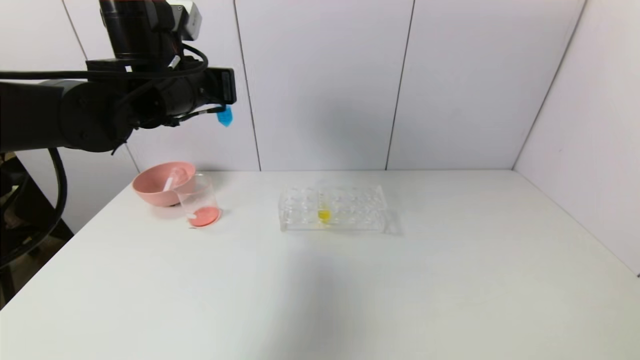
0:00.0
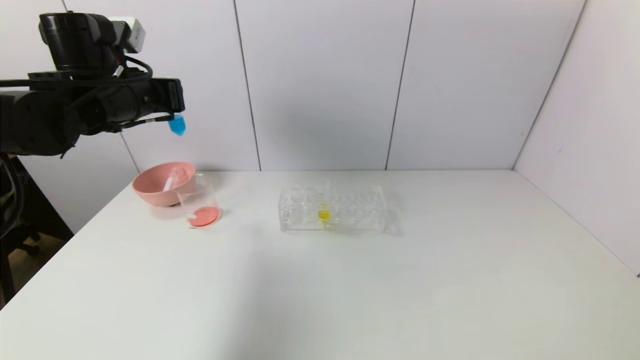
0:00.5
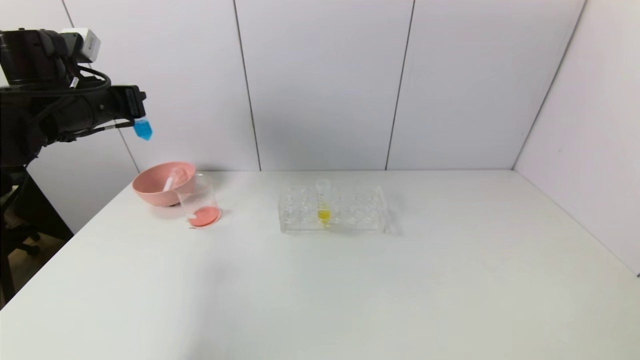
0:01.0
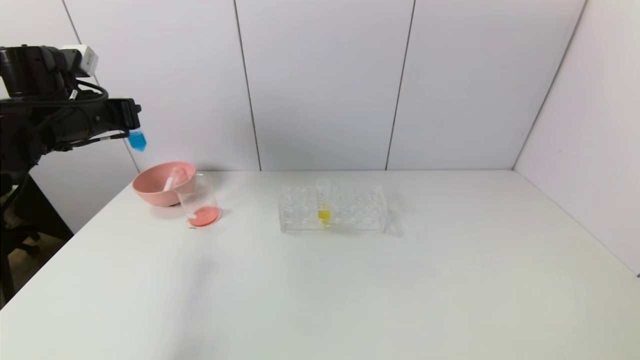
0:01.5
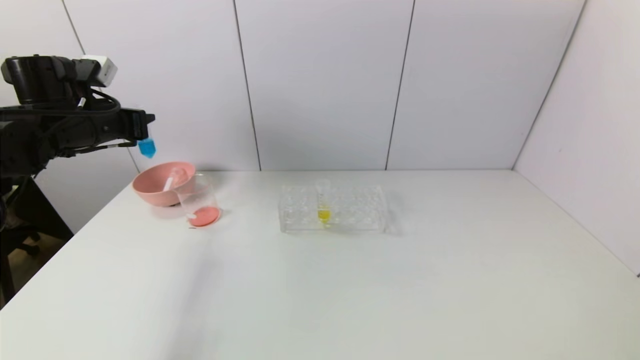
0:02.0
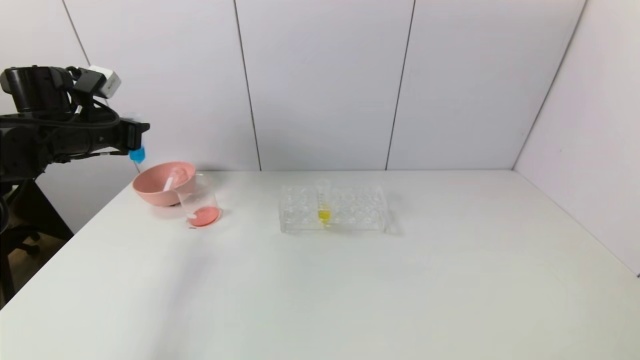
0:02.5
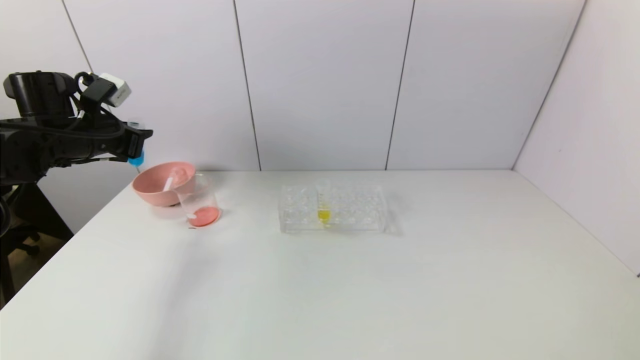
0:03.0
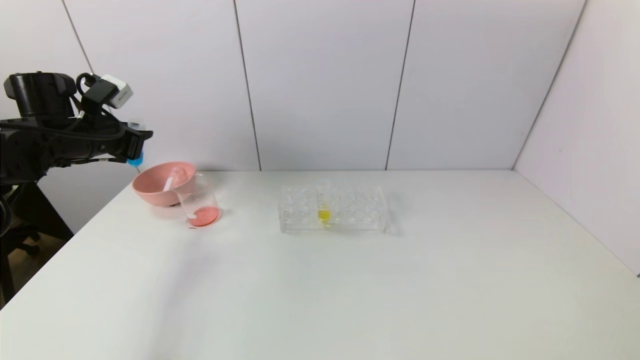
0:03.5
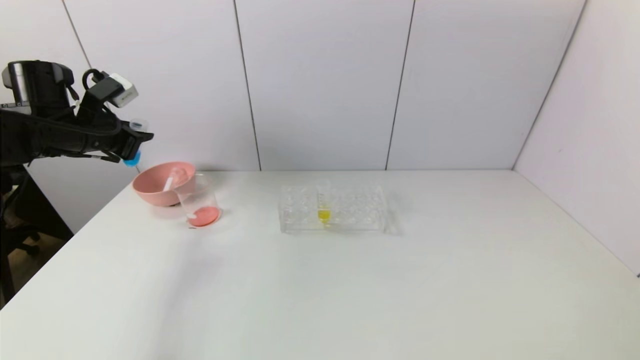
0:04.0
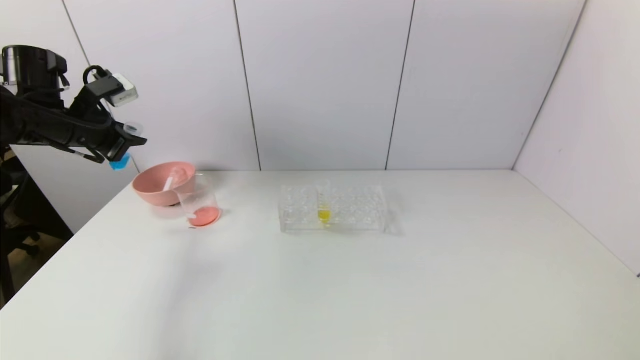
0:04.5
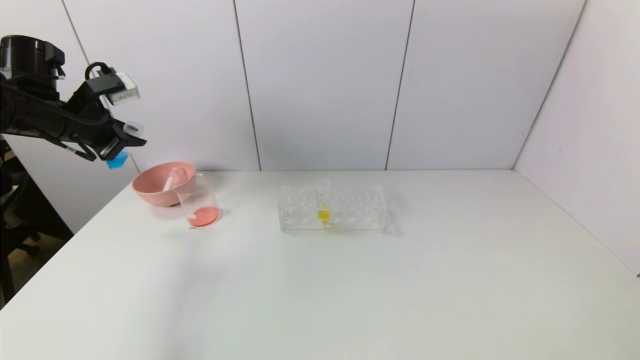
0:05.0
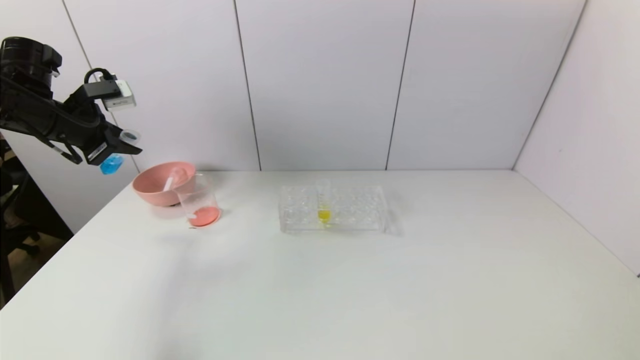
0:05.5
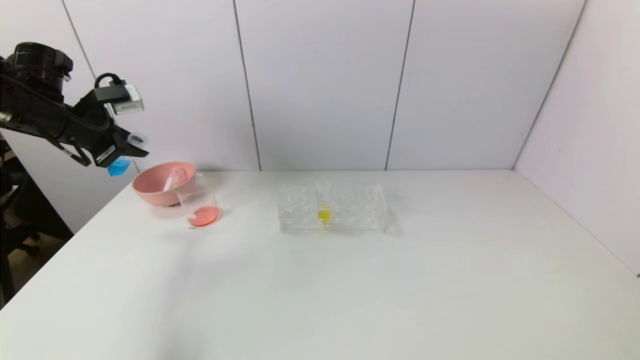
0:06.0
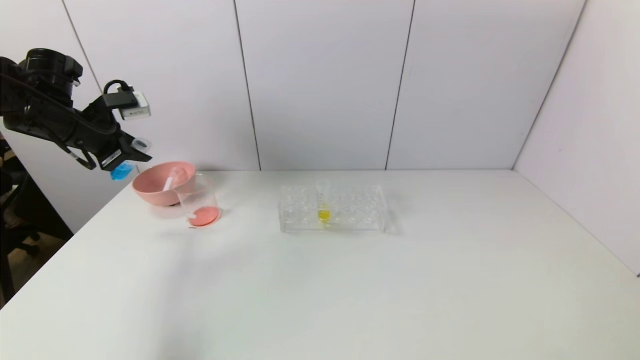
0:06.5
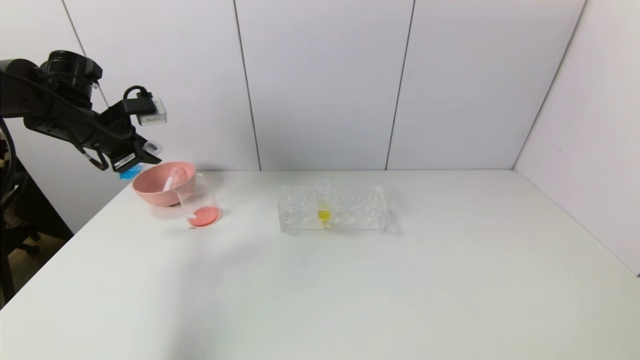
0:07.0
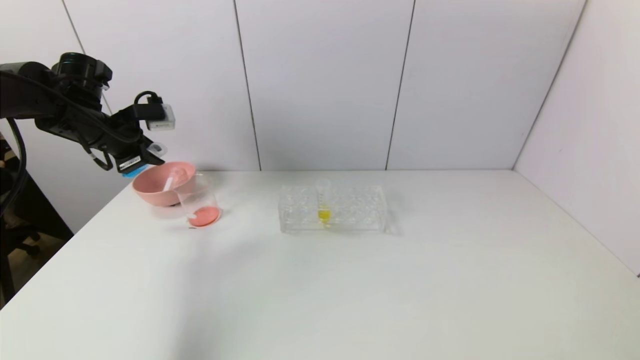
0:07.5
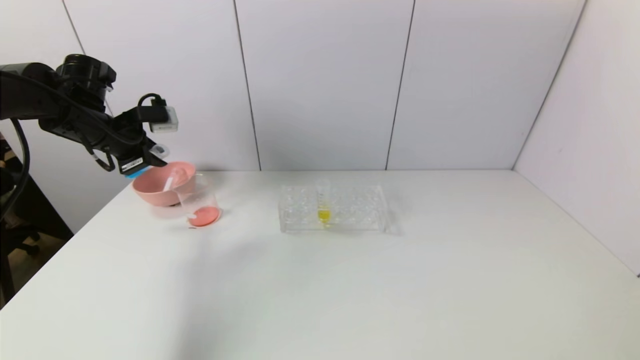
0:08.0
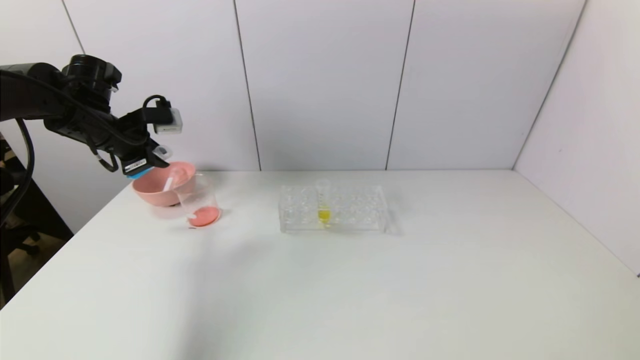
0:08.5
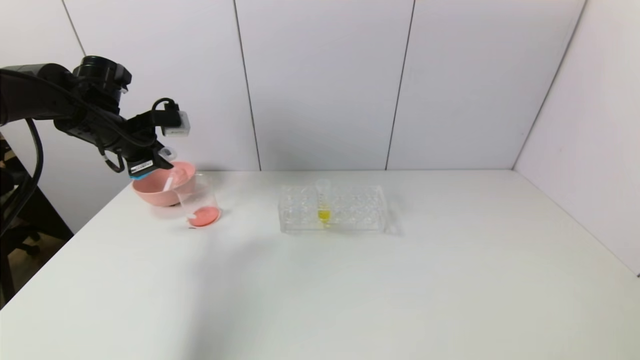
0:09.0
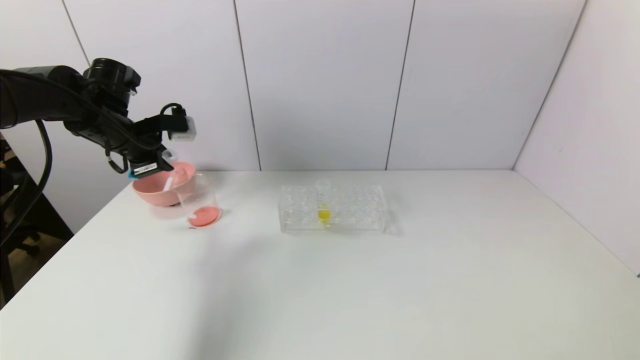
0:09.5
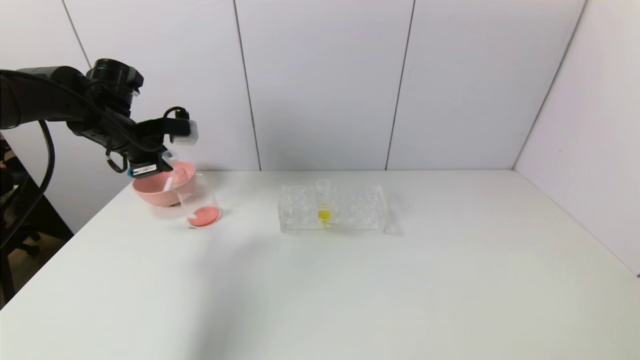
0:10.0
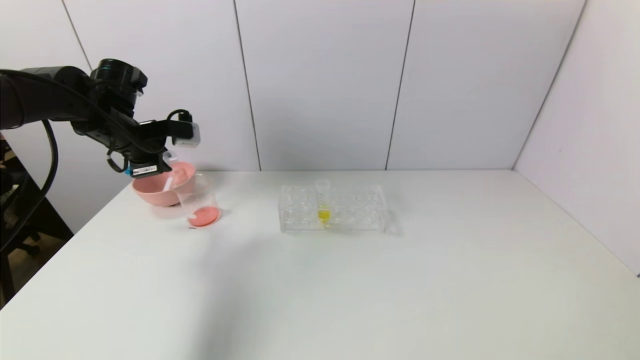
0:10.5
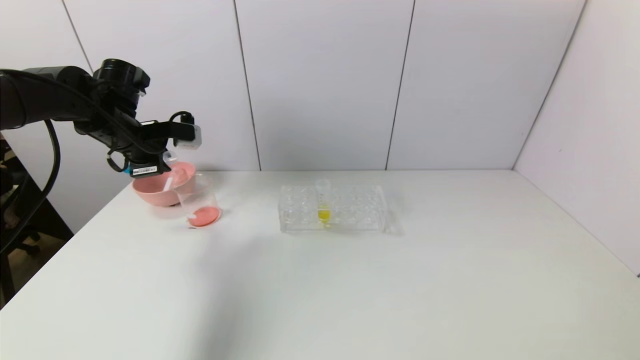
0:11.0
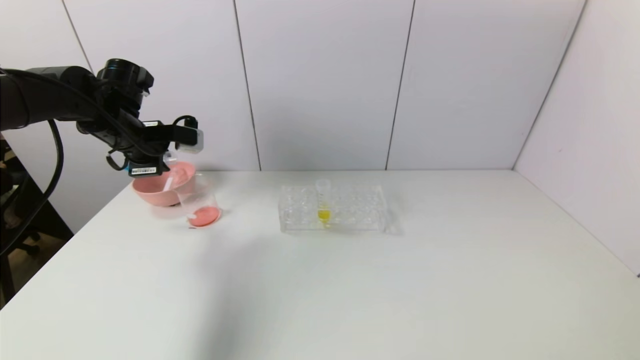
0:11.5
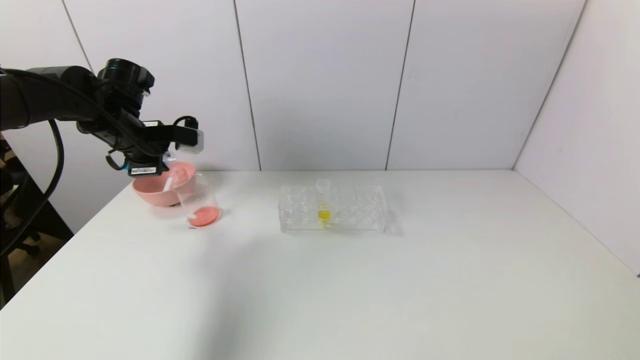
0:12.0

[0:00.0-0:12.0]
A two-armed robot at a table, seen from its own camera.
Task of the whole recording: pick up the test tube with red pigment and the test tube with blue pigment by grippers and pour them into the container.
0:00.0 to 0:02.0: The left gripper travels to the left by approximately 15 cm.
0:06.0 to 0:08.0: The grippers make only small movements.
0:08.0 to 0:10.0: The grippers stay close to where they were, moving slightly.
0:10.0 to 0:12.0: The grippers move only a little.

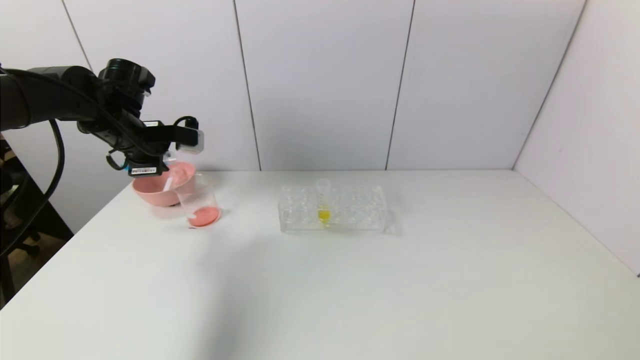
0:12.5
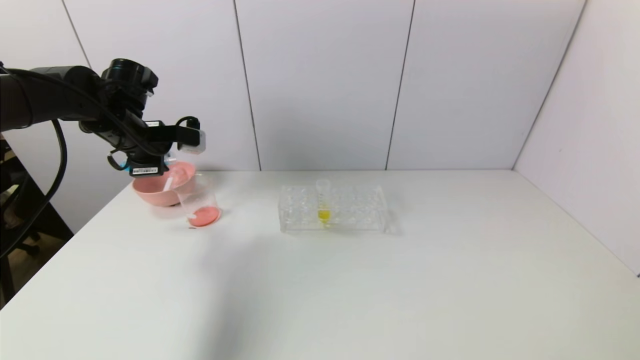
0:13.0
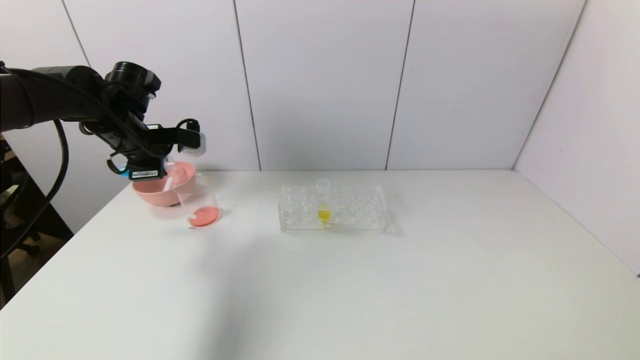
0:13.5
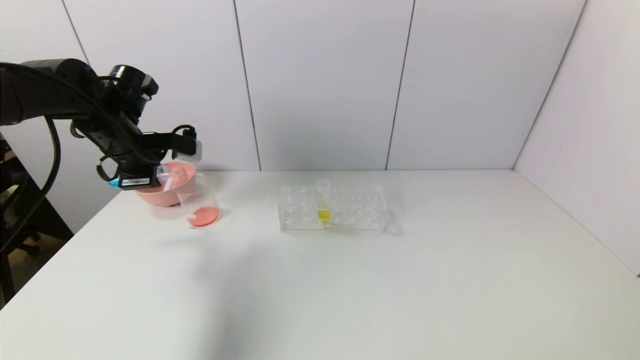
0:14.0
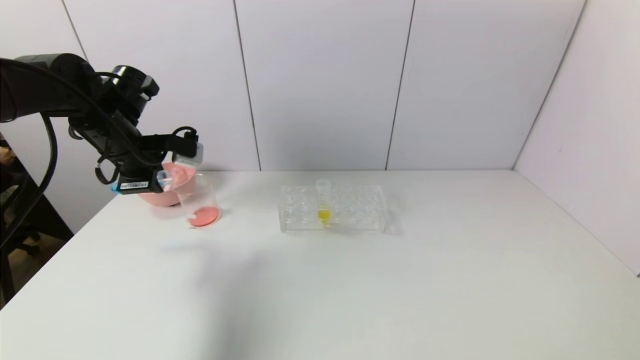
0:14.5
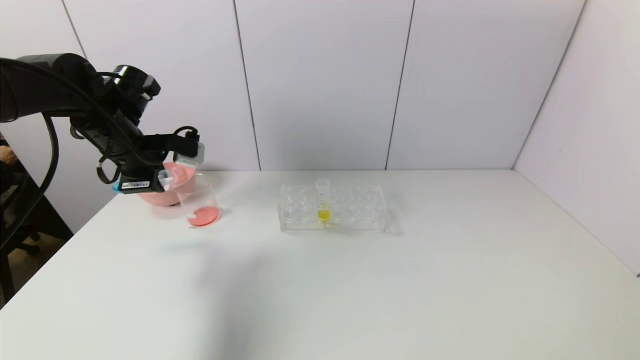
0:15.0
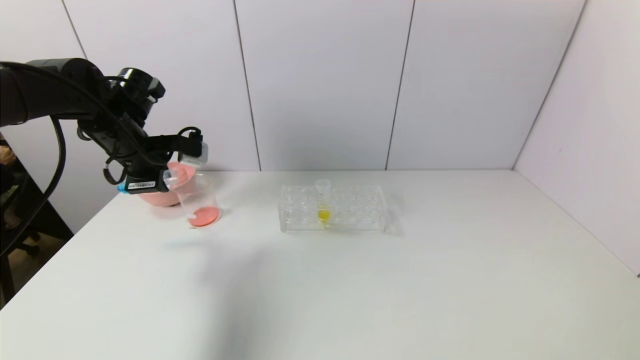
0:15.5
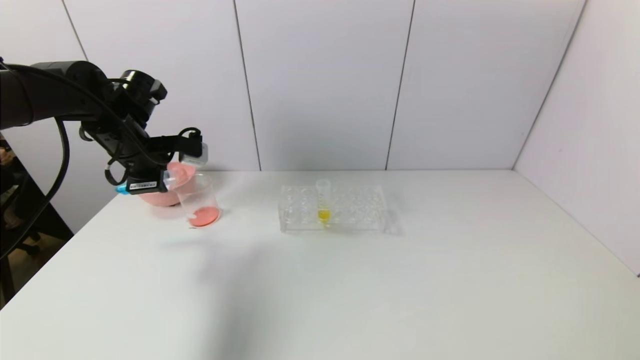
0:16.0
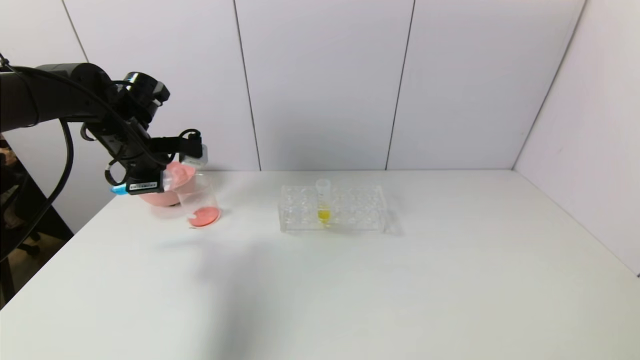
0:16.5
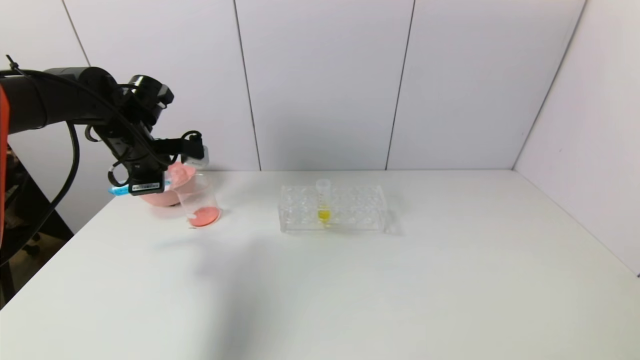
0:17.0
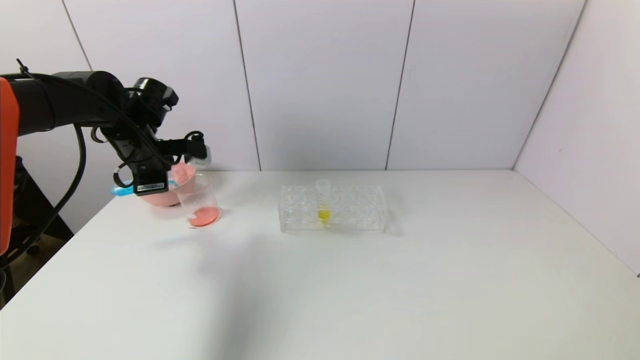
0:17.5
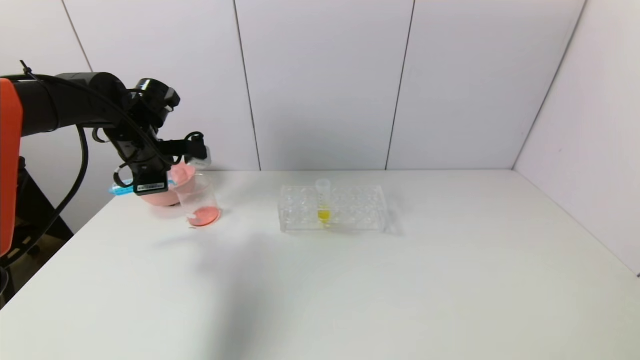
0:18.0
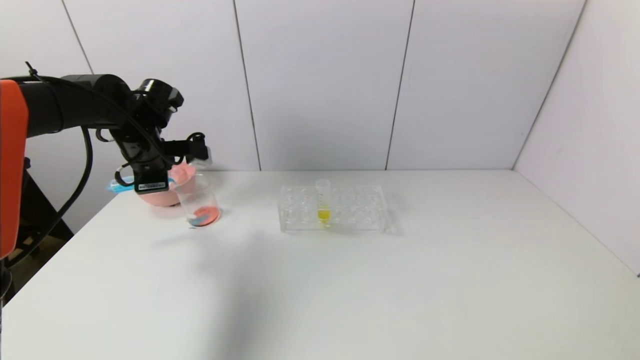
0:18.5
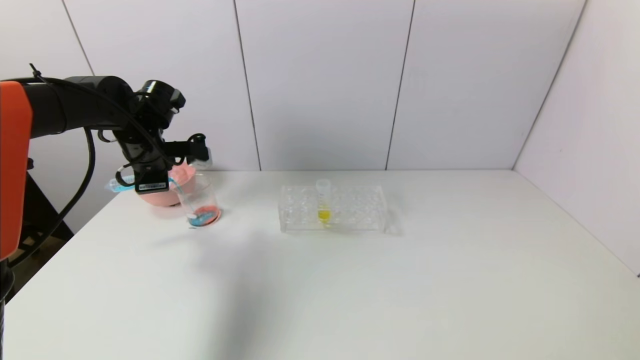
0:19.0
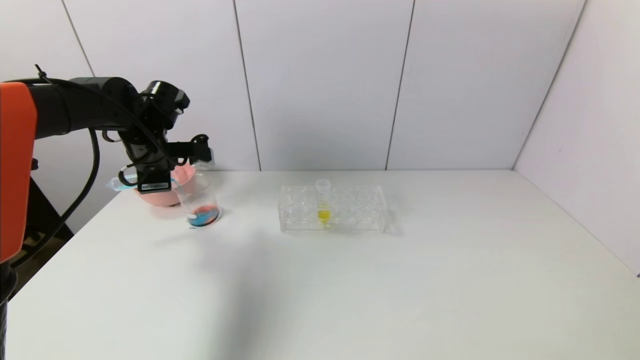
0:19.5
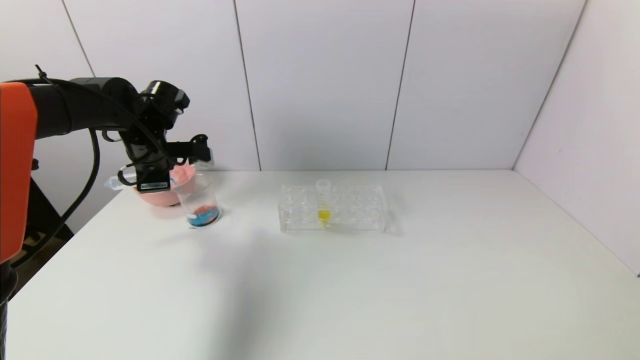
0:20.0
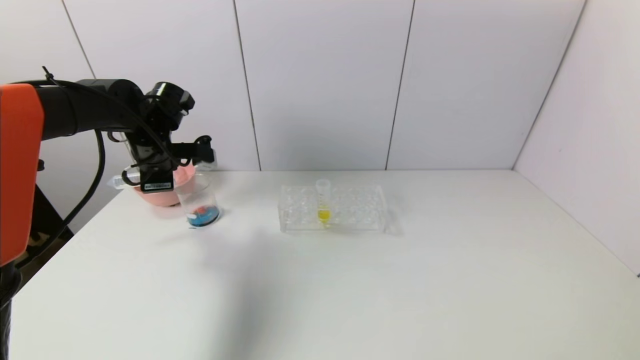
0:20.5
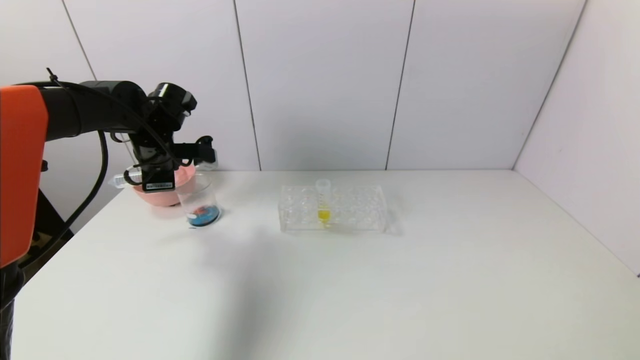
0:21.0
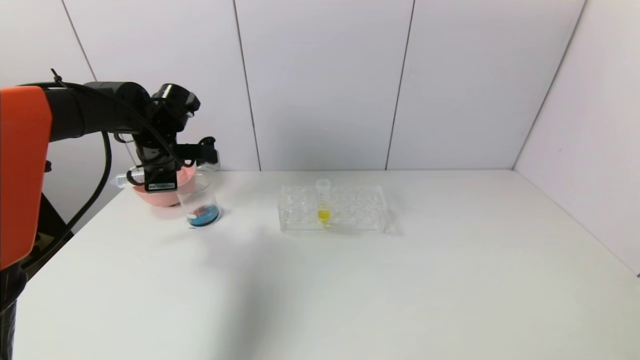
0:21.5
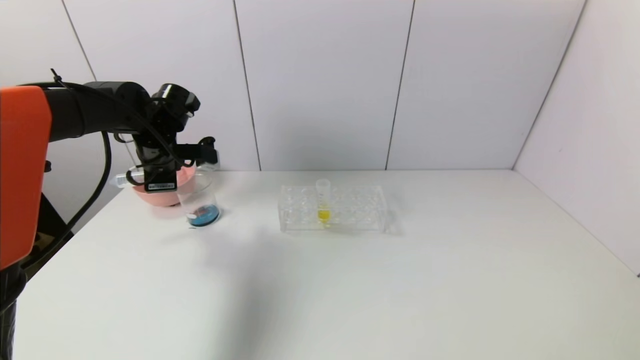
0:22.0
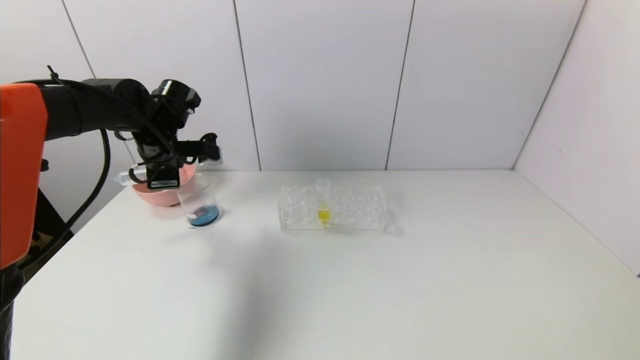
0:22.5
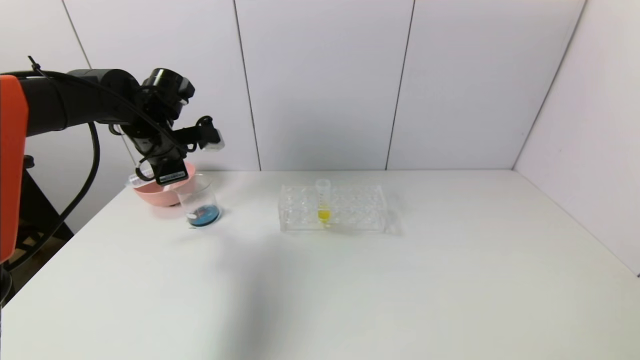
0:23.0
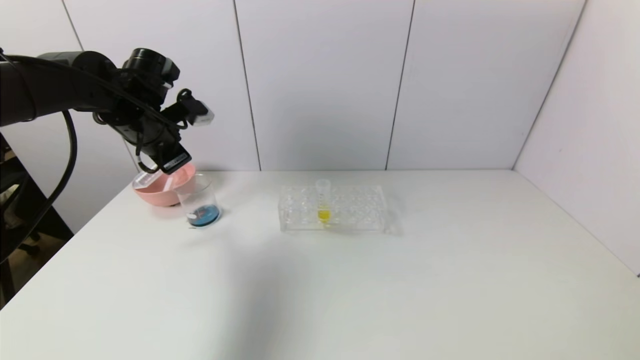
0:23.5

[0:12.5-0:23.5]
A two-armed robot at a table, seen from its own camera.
Task of the whole recording: pick up the test tube with red pigment and the test tube with blue pigment by grippers and pour them into the container.
Step, 0:12.5 to 0:23.0: Pour the blue reagent into the graduated cylinder with the left gripper.
0:12.5 to 0:14.5: The grippers make only small movements.
0:14.5 to 0:16.0: Neither gripper changes place.
0:16.0 to 0:20.0: There are only small adjustments of the grippers.
0:20.0 to 0:21.5: Neither gripper changes place.
0:21.5 to 0:23.5: The left gripper ends up some 5 cm from where it was.
